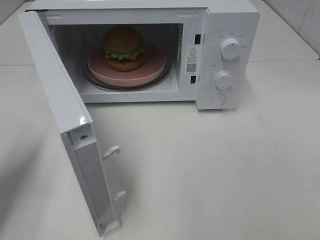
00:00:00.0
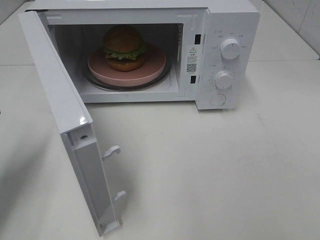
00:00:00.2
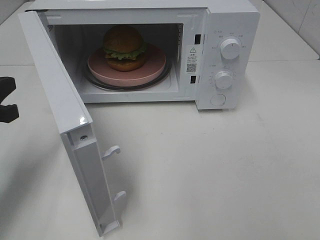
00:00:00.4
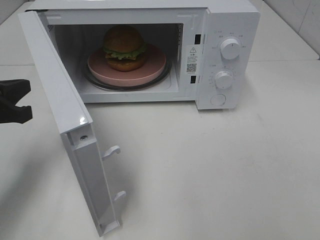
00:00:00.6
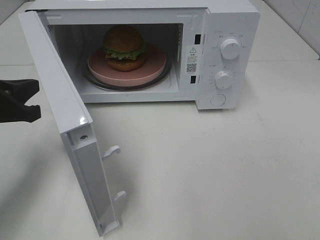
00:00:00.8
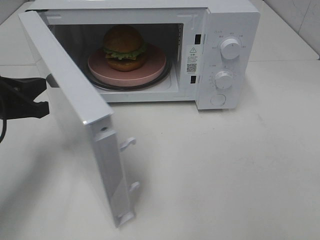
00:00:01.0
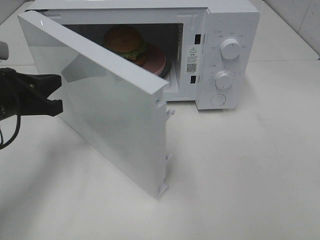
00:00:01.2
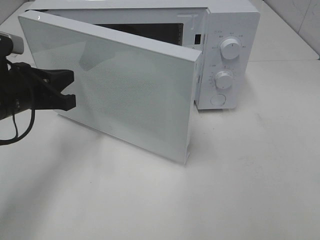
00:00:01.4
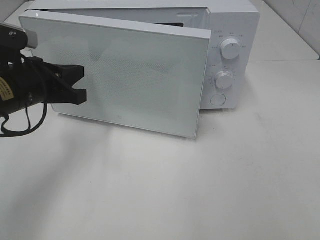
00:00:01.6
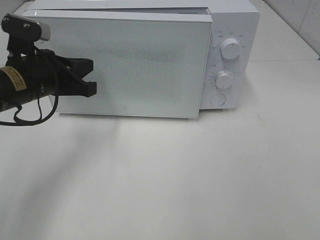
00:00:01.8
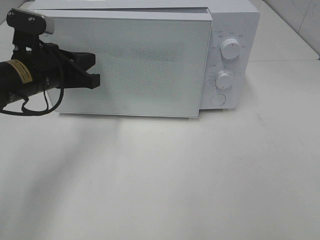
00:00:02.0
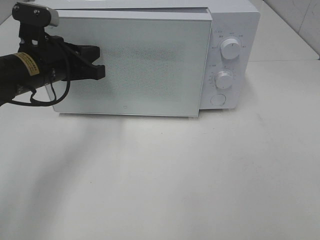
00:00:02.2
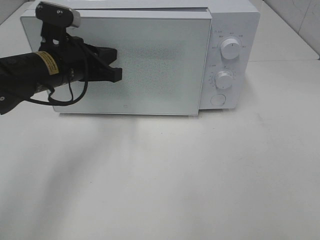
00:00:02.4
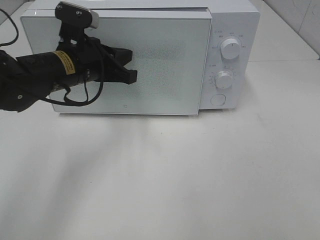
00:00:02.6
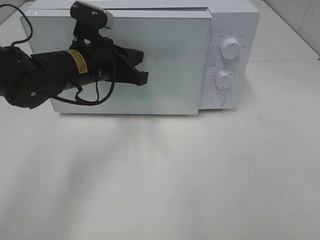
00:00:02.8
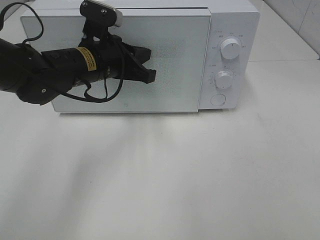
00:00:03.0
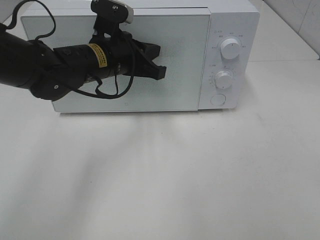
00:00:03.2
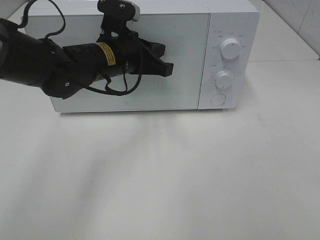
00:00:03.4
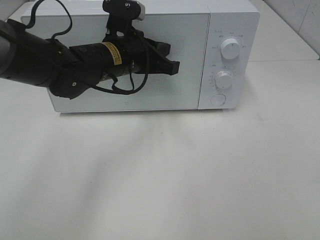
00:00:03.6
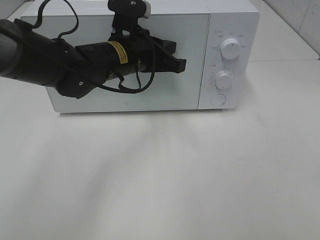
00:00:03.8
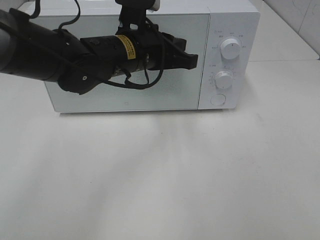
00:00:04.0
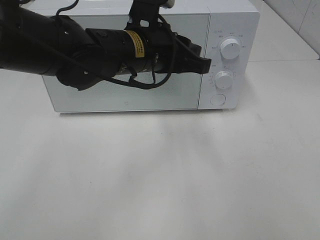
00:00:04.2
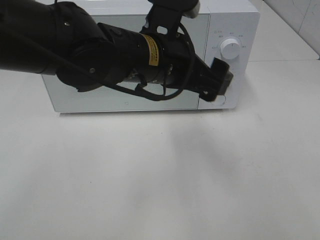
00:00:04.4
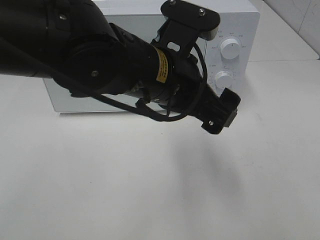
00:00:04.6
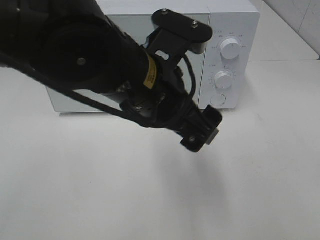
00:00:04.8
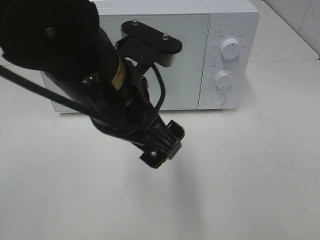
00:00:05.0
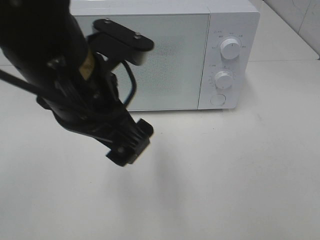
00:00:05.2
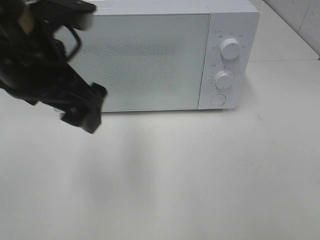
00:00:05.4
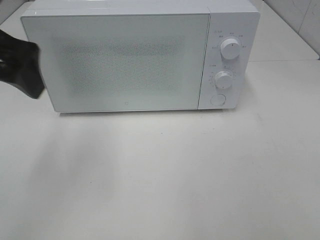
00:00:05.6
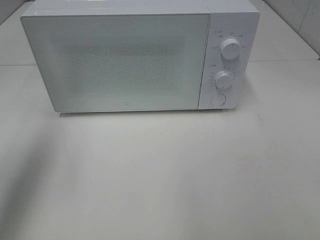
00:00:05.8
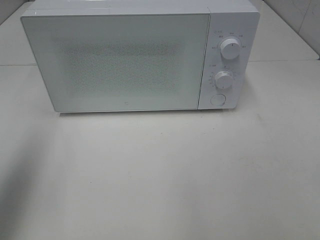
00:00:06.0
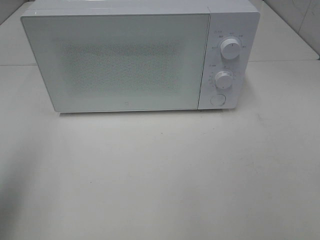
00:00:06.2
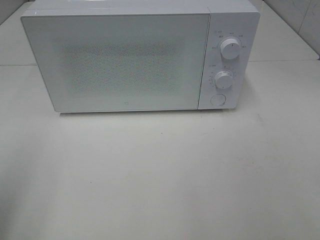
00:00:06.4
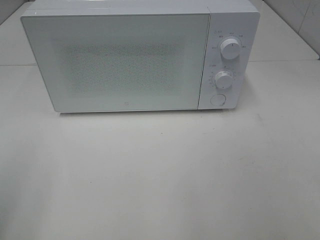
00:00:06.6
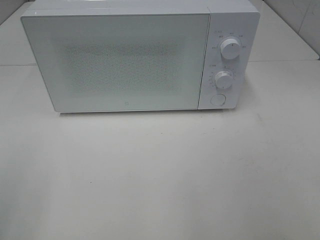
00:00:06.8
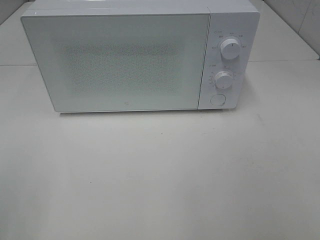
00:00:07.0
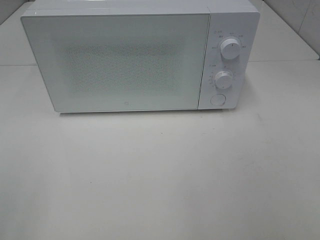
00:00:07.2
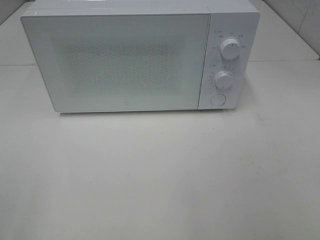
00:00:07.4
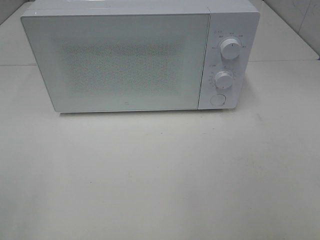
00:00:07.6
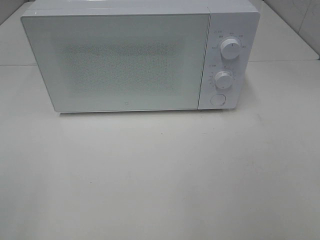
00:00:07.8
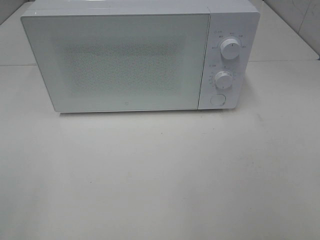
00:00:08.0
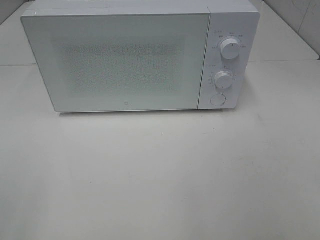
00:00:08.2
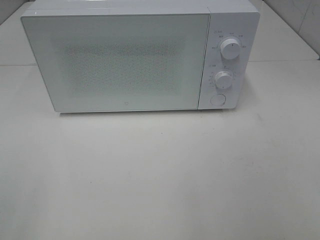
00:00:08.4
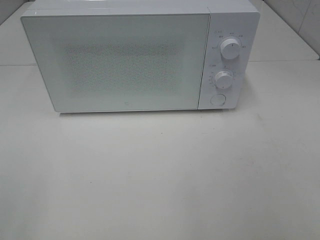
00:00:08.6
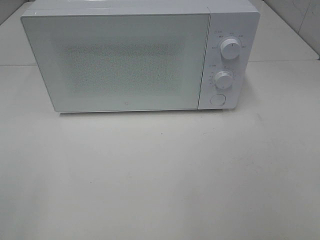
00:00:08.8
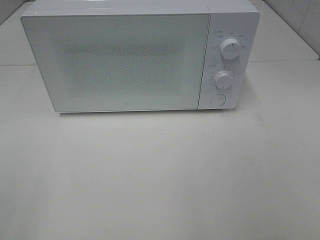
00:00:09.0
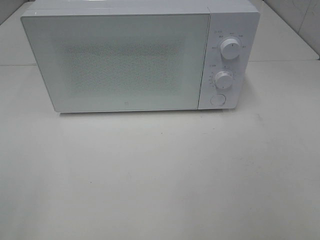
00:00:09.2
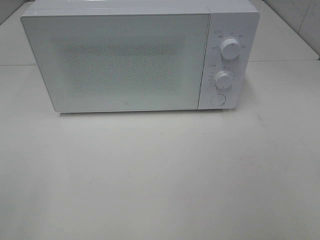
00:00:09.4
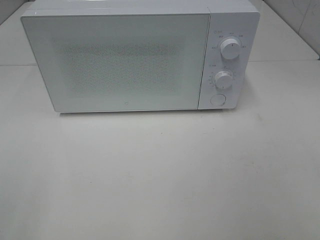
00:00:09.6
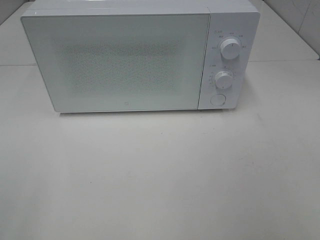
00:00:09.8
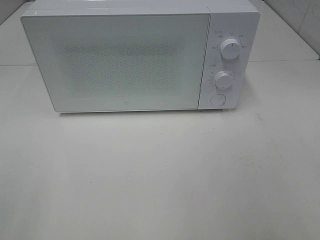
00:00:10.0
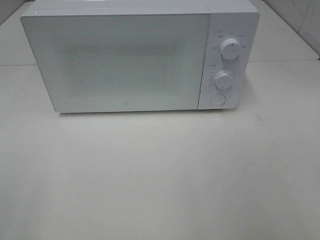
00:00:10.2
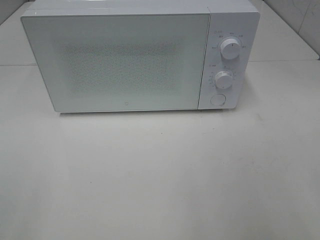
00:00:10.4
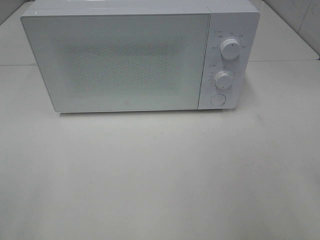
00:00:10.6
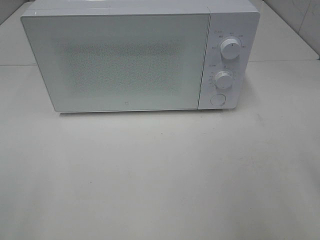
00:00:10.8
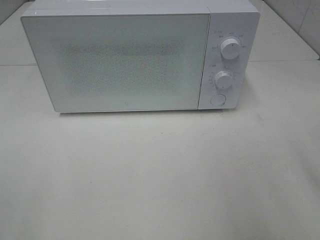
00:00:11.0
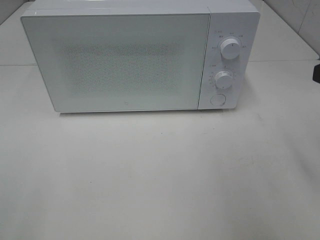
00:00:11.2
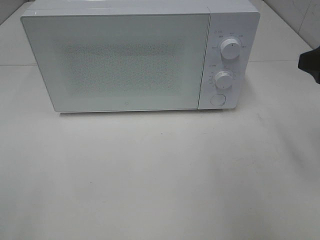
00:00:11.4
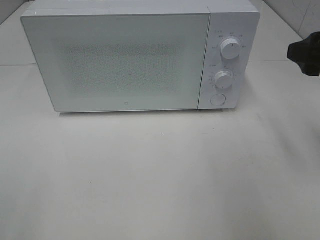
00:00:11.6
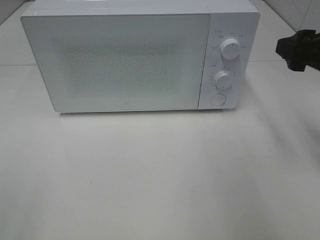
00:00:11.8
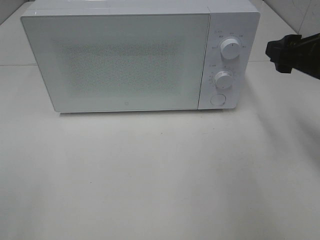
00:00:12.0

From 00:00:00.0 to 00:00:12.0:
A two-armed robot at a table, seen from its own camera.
Task of the whole recording: Heat the burger.
Step, from 00:00:00.0 to 00:00:03.8: Left hand: close the microwave door.
From 00:00:00.0 to 00:00:01.6: The left gripper is displaced to the right and forward by some 15 cm.
From 00:00:01.6 to 00:00:03.0: The left gripper goes some 10 cm to the right and forward.
From 00:00:03.0 to 00:00:04.4: The left gripper heads to the right, backward and upward, covering approximately 15 cm, and opens its fingers.
From 00:00:04.4 to 00:00:06.0: The left gripper heads to the left, covering approximately 30 cm.
From 00:00:06.0 to 00:00:07.6: The left gripper moves backward, about 20 cm.
From 00:00:07.6 to 00:00:09.0: Neither gripper changes place.
From 00:00:10.4 to 00:00:12.0: The right gripper goes about 20 cm forward.

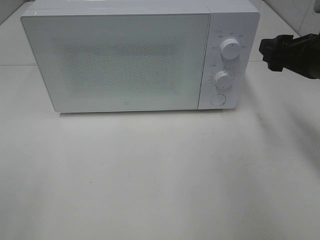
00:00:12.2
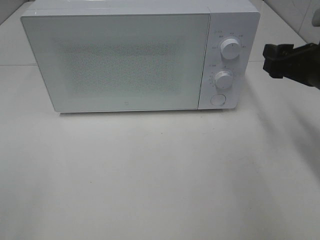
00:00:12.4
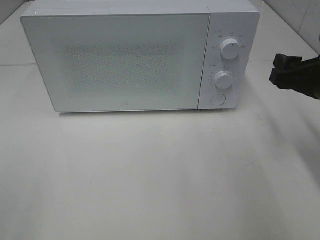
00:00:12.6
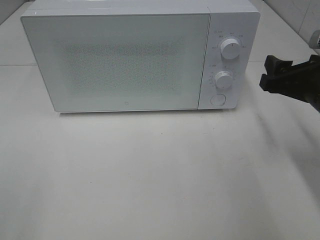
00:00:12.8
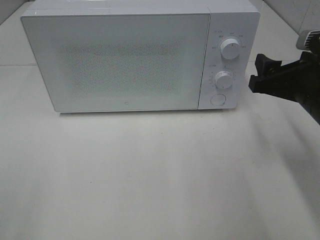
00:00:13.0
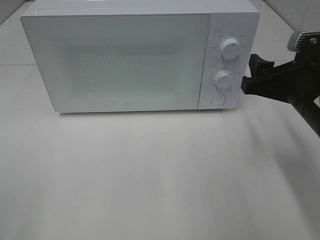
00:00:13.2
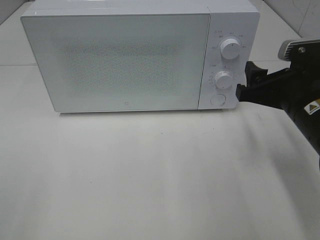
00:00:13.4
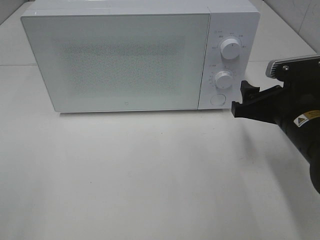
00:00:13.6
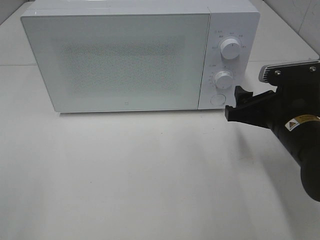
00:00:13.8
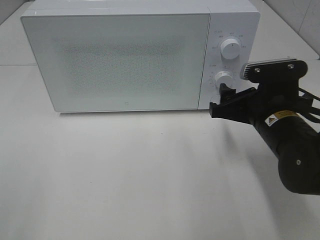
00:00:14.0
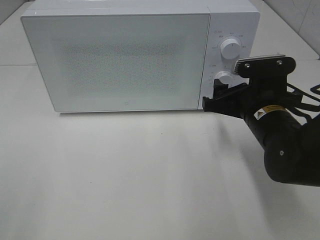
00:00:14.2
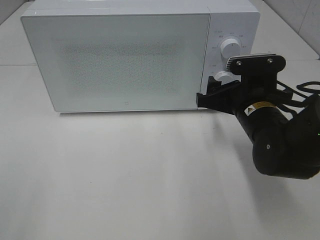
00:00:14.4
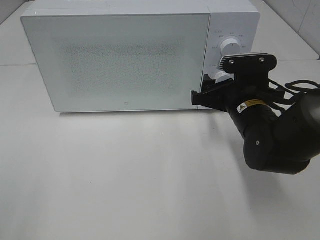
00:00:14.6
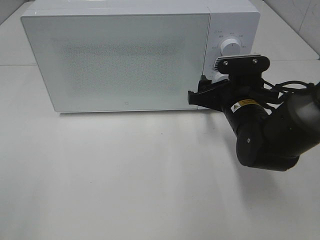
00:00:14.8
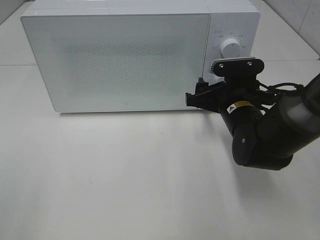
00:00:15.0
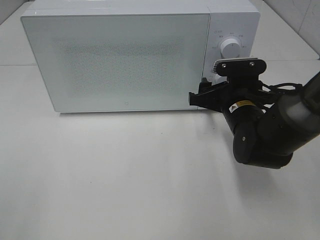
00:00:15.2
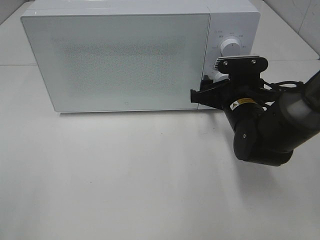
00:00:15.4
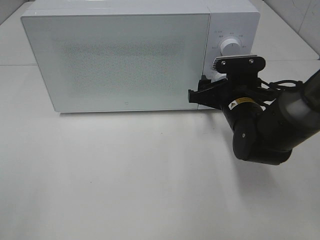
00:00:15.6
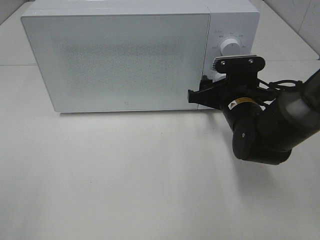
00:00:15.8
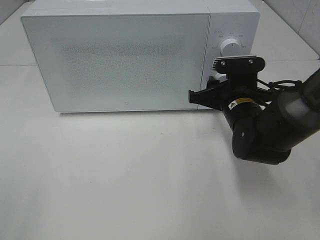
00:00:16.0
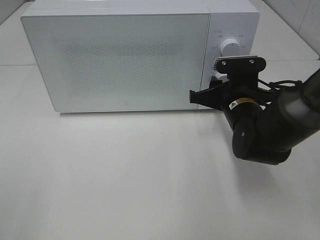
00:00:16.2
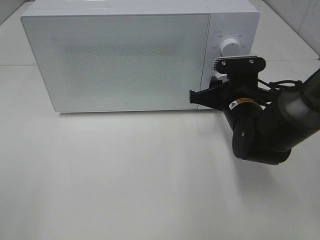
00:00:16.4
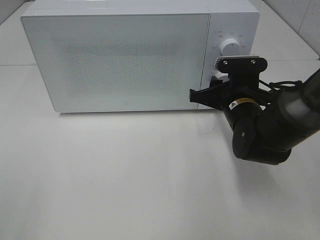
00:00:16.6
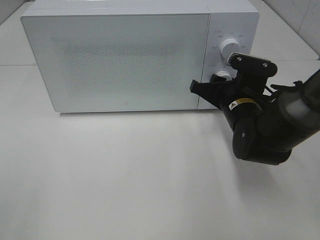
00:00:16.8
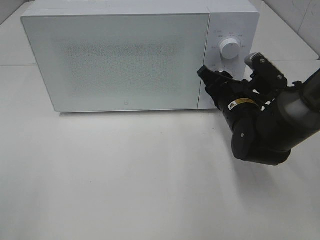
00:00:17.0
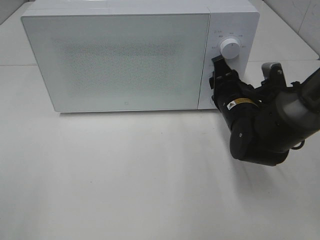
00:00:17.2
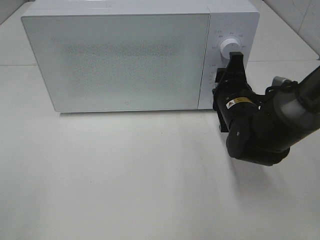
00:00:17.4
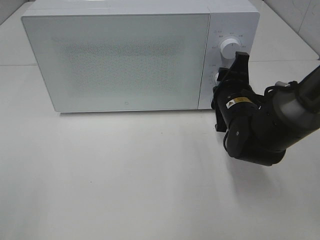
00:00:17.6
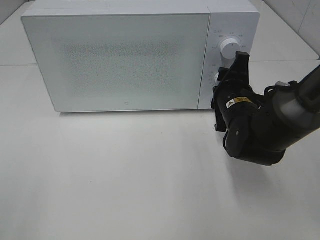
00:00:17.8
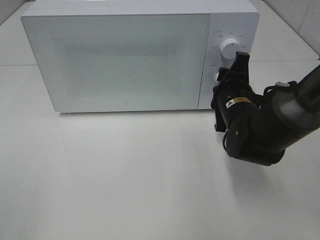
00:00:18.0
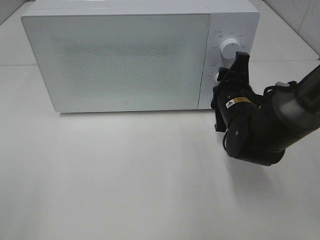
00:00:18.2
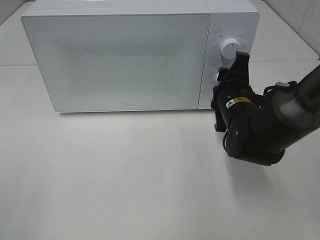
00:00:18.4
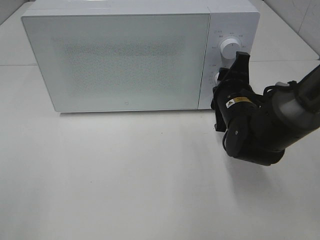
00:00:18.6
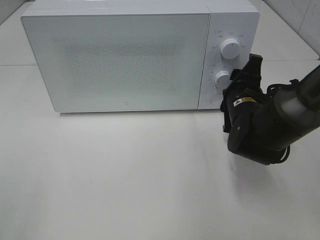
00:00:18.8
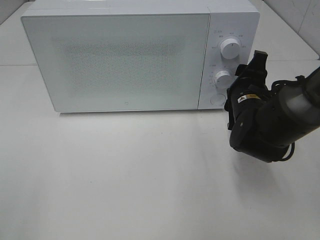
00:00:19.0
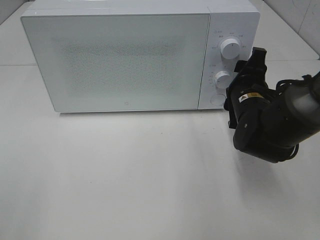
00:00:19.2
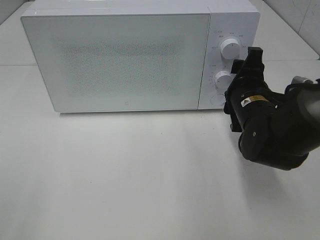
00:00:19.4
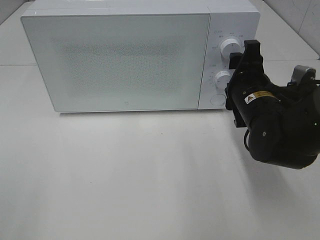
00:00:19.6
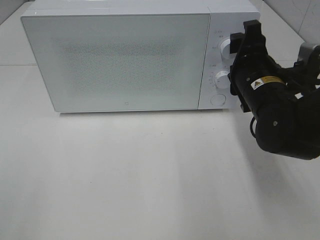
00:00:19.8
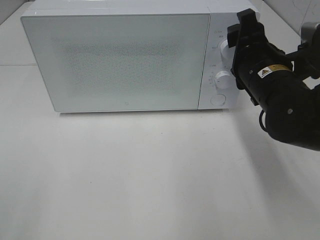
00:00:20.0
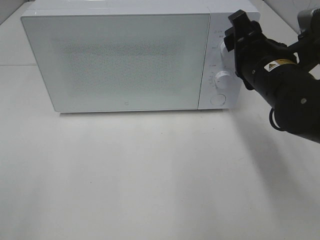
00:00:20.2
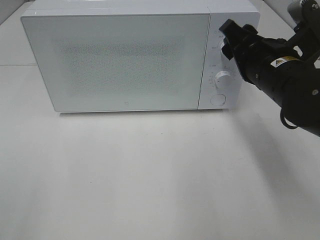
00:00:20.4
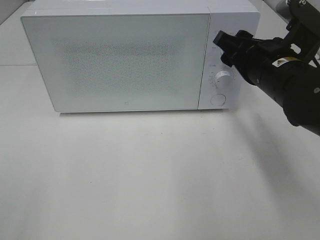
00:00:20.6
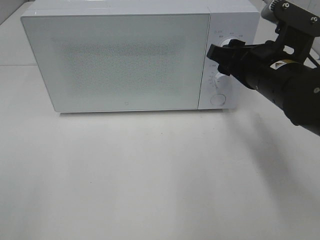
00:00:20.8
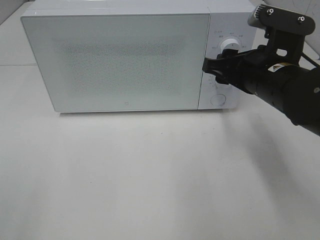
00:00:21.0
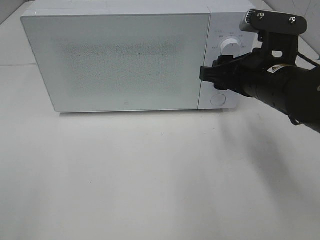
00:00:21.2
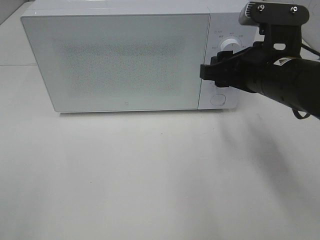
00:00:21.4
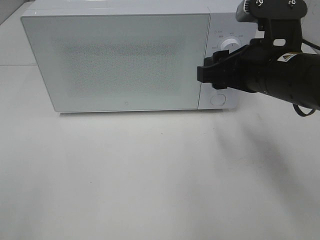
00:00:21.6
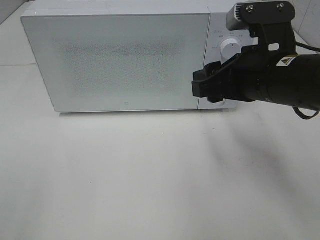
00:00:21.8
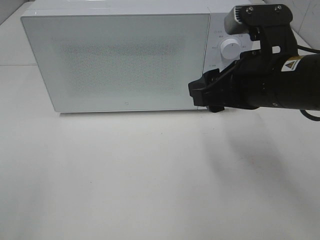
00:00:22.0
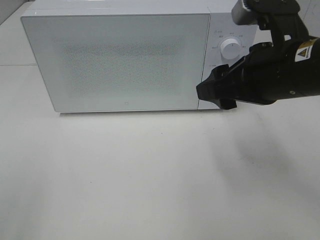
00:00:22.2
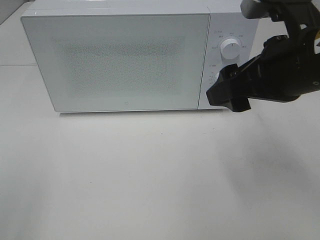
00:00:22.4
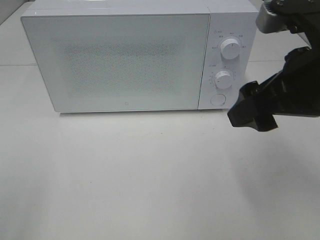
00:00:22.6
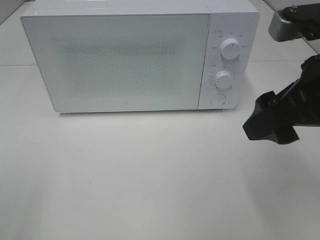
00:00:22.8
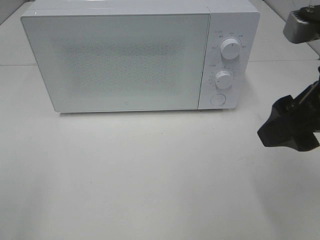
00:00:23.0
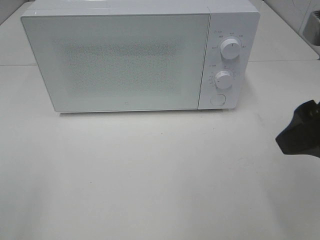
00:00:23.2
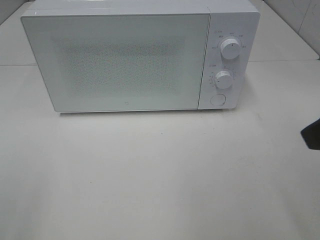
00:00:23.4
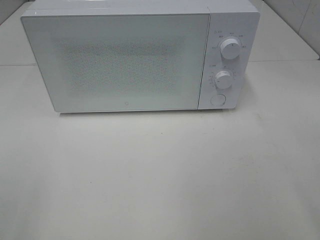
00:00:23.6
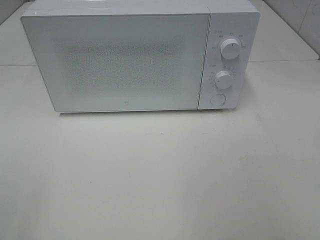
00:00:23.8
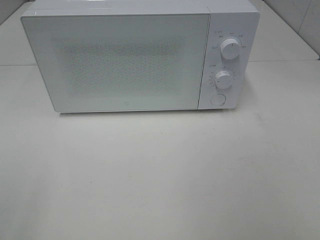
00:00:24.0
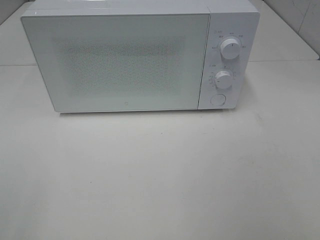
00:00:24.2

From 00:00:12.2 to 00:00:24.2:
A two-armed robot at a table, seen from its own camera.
Task of the whole recording: Heat the burger.
Step, from 00:00:12.2 to 00:00:18.8: Right hand: twist timer button.
From 00:00:12.2 to 00:00:13.8: The right gripper shifts about 10 cm downward and to the left.
From 00:00:13.8 to 00:00:15.2: The right gripper is displaced forward by about 10 cm.
From 00:00:15.2 to 00:00:16.6: The right gripper closes up.
From 00:00:18.2 to 00:00:19.8: The right gripper heads upward, covering approximately 5 cm.
From 00:00:21.2 to 00:00:22.6: The right gripper moves upward and backward, some 10 cm.
From 00:00:22.6 to 00:00:24.2: The right gripper moves backward and to the right, about 25 cm.
